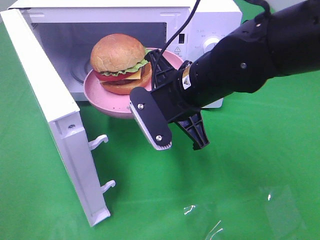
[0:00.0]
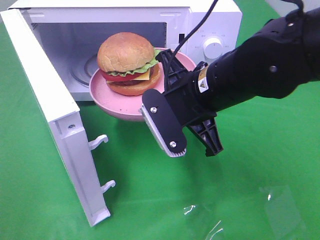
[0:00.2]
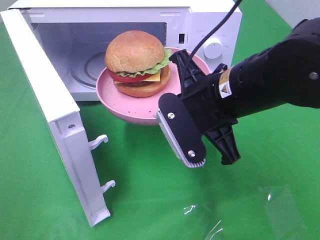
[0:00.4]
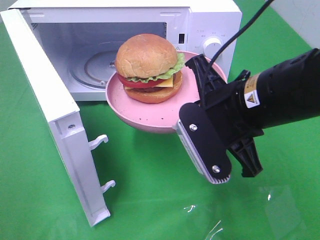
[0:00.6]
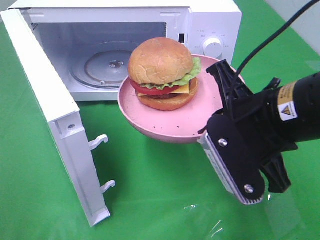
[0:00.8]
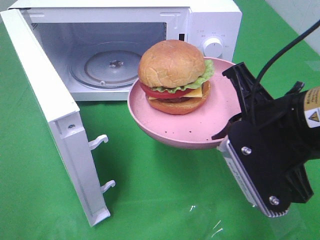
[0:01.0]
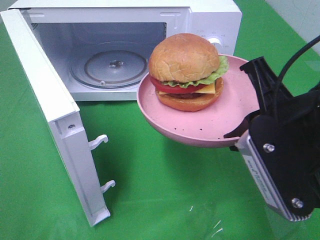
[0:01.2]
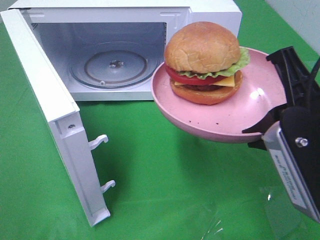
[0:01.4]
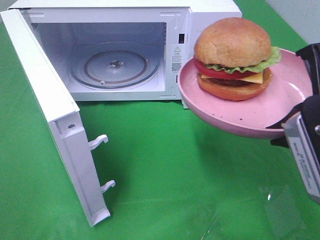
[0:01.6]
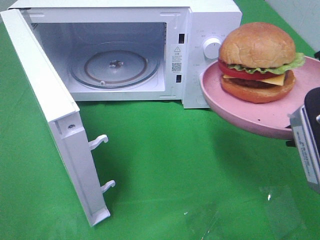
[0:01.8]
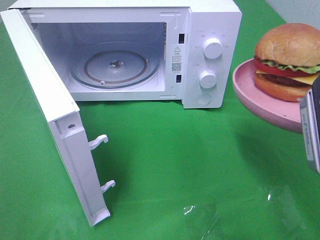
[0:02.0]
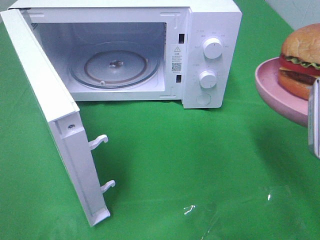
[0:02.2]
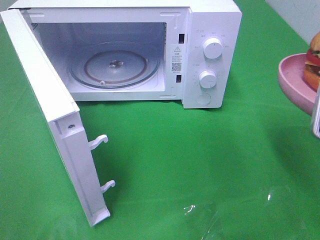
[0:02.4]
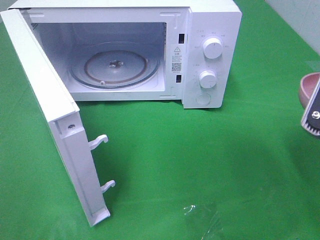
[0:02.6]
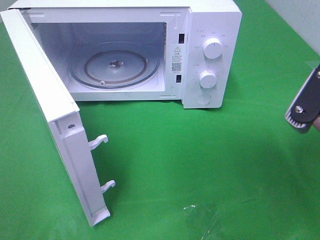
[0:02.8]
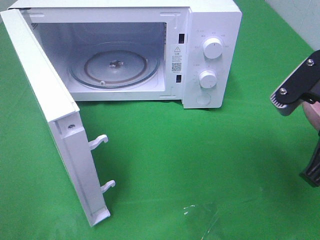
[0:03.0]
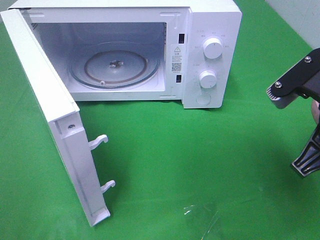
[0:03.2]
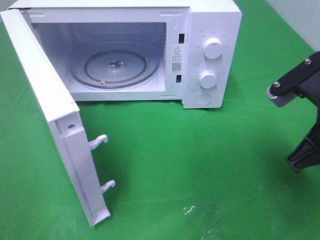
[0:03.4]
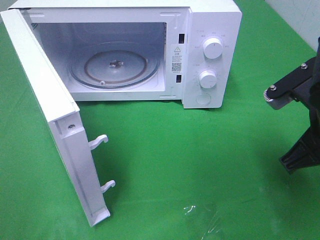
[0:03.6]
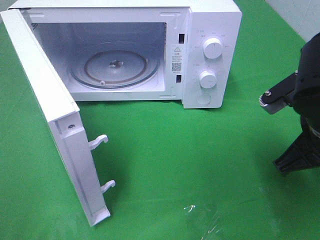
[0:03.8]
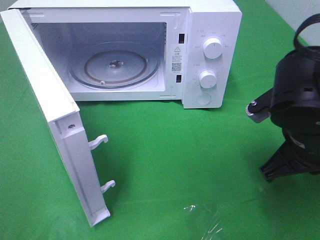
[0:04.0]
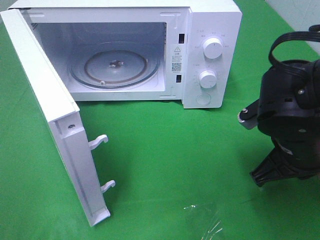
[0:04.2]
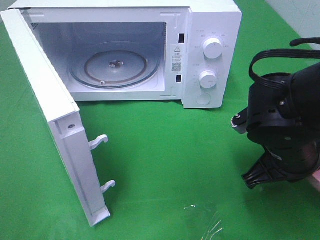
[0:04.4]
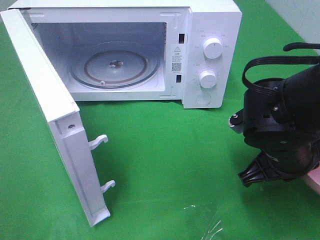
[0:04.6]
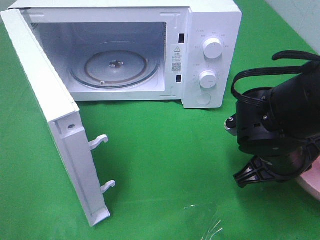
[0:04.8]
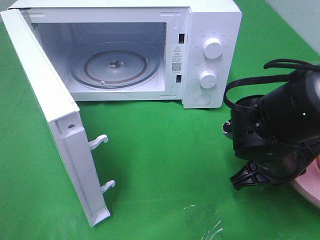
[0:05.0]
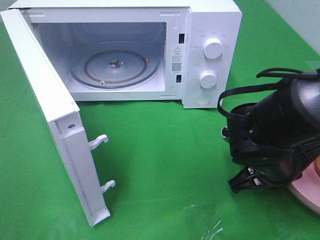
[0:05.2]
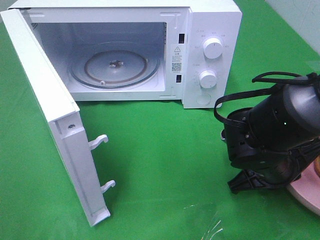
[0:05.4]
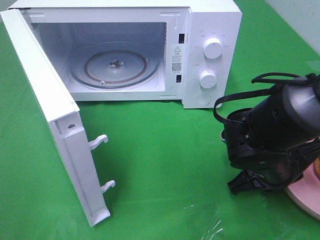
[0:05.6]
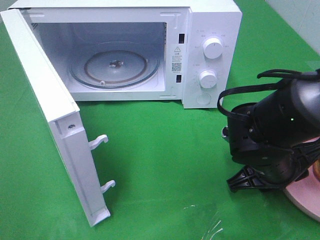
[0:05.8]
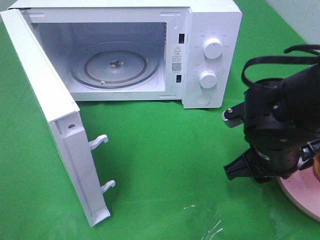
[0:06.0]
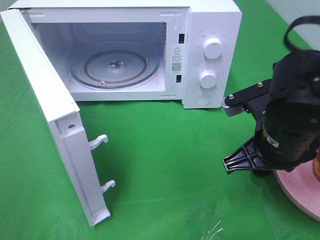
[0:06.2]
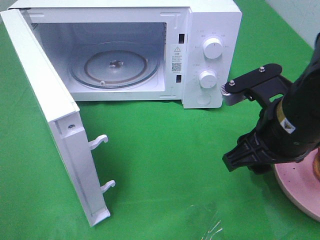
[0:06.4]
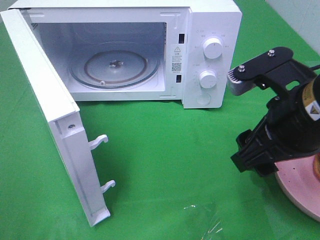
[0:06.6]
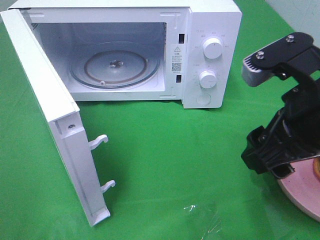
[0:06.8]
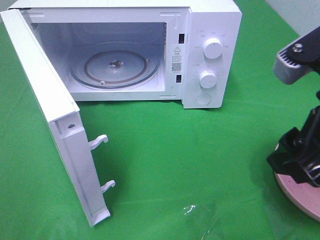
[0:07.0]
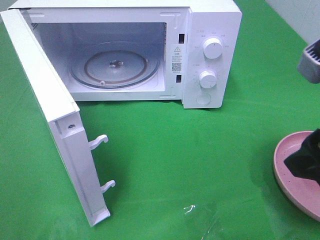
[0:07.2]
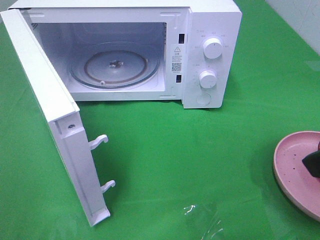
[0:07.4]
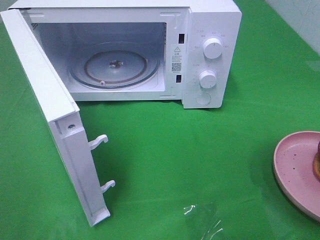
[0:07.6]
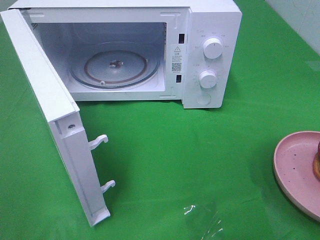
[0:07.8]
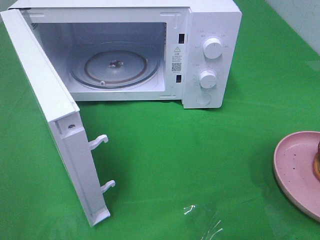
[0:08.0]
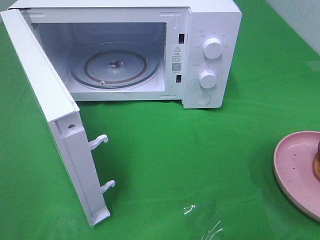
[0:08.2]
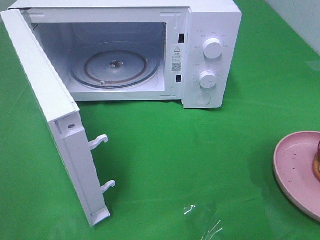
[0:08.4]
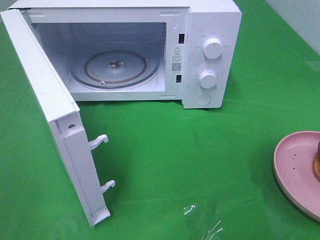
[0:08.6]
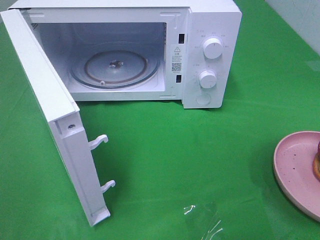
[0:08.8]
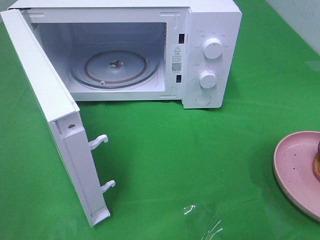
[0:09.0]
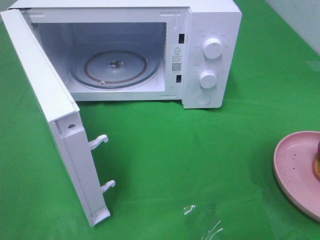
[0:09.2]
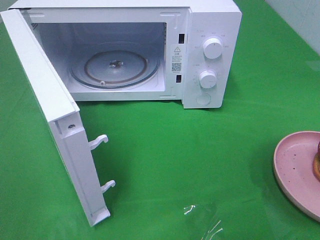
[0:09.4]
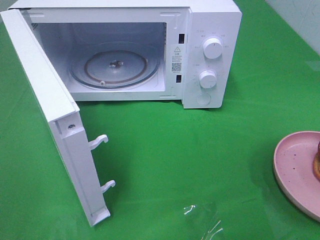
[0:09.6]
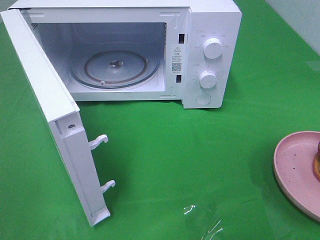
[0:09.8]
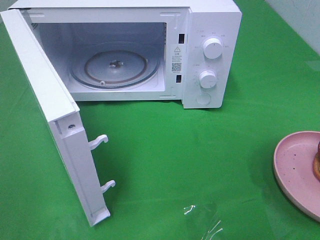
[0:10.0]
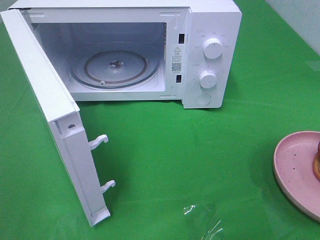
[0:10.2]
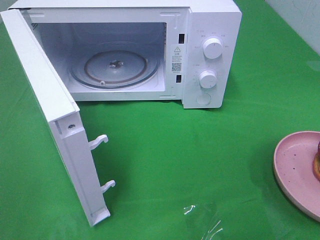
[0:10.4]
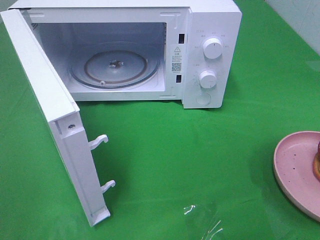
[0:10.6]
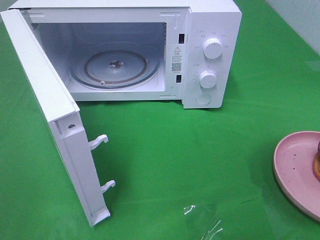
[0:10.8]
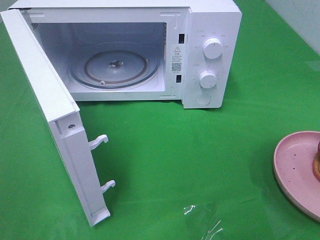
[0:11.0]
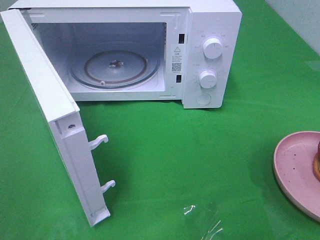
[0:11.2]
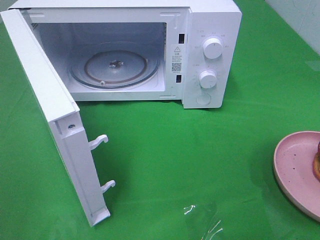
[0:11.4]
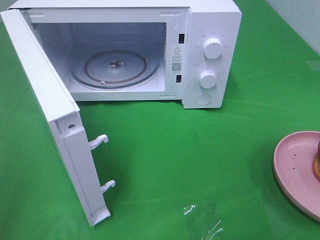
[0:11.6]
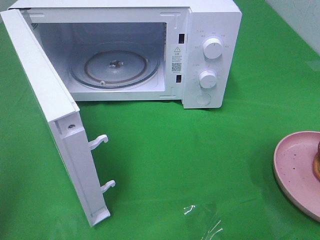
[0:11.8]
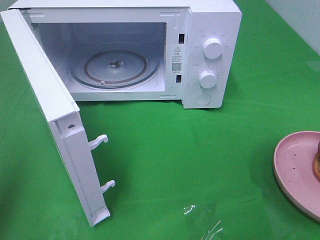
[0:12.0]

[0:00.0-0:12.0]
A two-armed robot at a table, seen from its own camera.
Task of the whole recording: Heat the burger.
Step, 0:00.0 to 0:06.8: Right hand: place the plate on the table.
0:00.0 to 0:01.6: The right gripper shifts approximately 20 cm to the right, backward and upward.
0:03.0 to 0:04.4: The right gripper travels downward by some 10 cm.
0:04.4 to 0:06.0: The right gripper opens.
0:06.0 to 0:07.6: The right gripper moves upward, backward and to the right, some 20 cm, and opens up.
0:09.0 to 0:10.4: Neither gripper changes place.

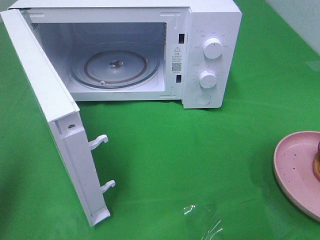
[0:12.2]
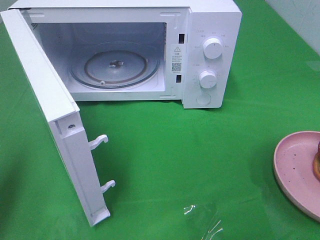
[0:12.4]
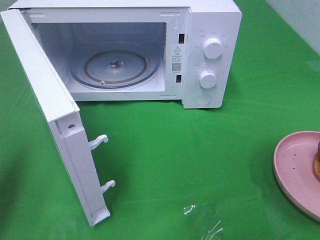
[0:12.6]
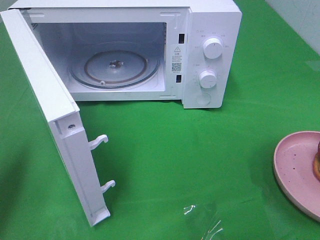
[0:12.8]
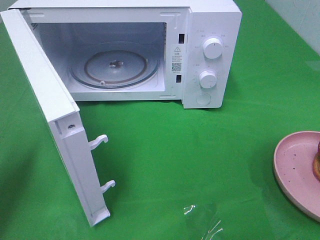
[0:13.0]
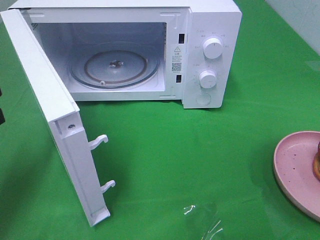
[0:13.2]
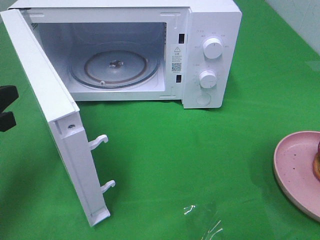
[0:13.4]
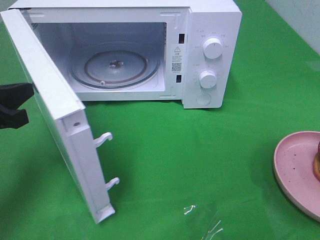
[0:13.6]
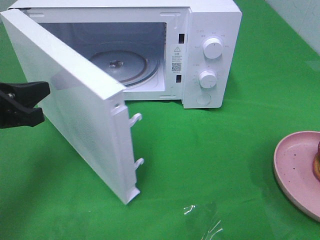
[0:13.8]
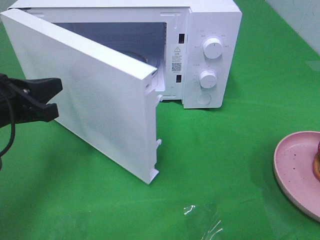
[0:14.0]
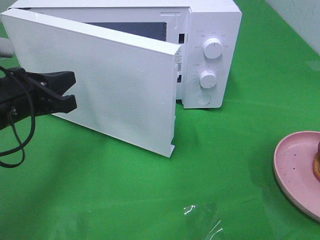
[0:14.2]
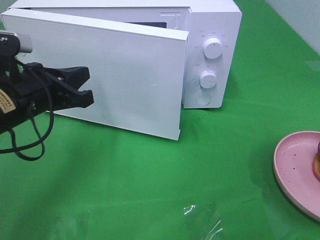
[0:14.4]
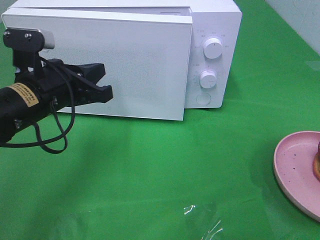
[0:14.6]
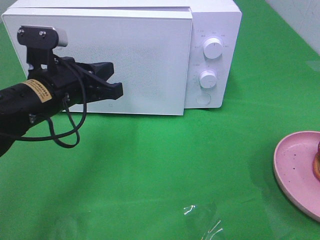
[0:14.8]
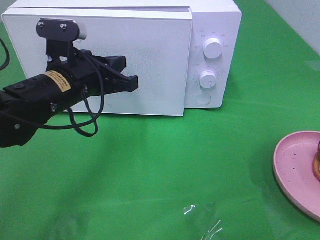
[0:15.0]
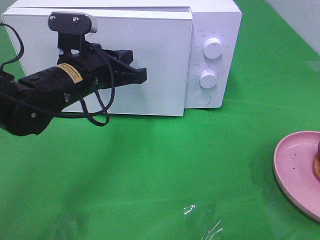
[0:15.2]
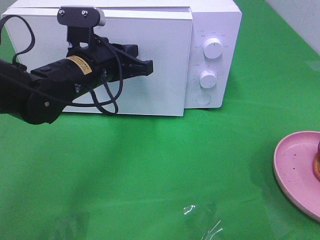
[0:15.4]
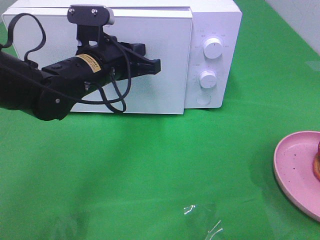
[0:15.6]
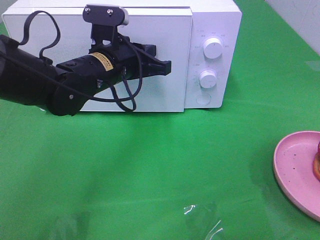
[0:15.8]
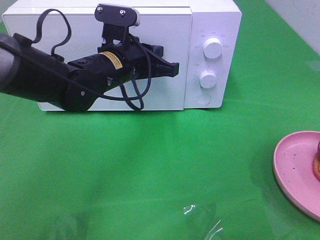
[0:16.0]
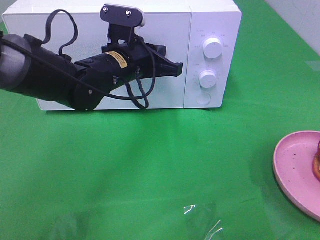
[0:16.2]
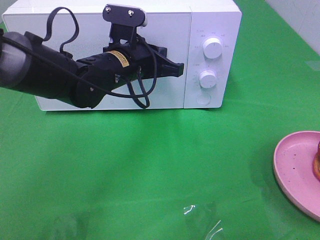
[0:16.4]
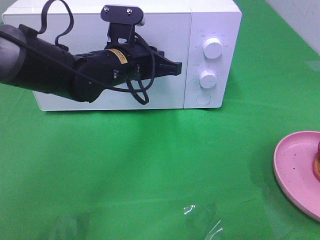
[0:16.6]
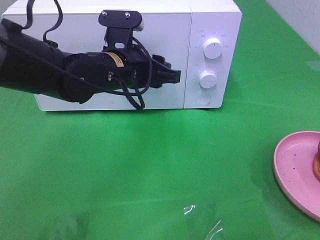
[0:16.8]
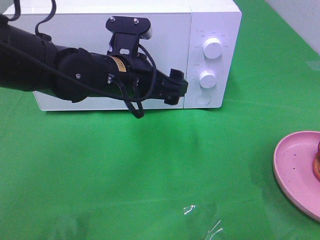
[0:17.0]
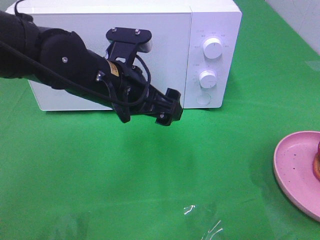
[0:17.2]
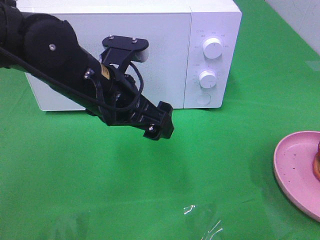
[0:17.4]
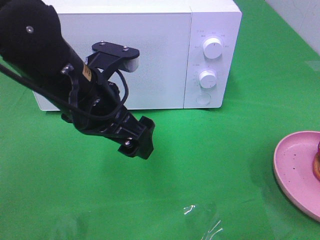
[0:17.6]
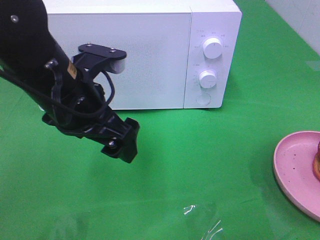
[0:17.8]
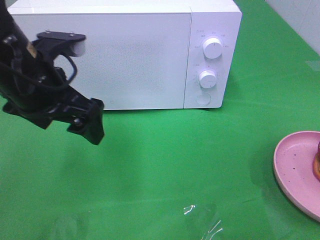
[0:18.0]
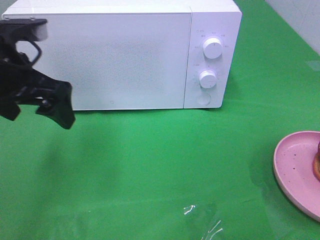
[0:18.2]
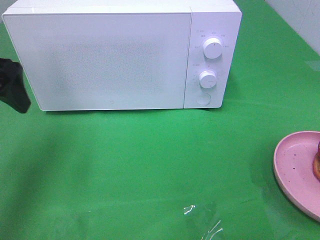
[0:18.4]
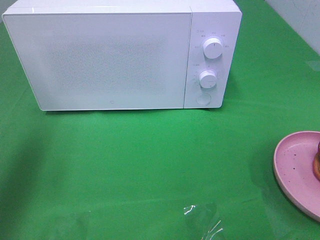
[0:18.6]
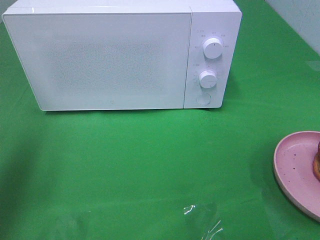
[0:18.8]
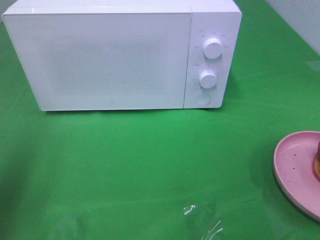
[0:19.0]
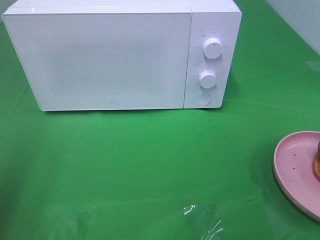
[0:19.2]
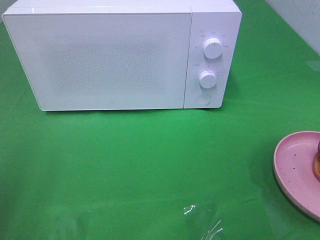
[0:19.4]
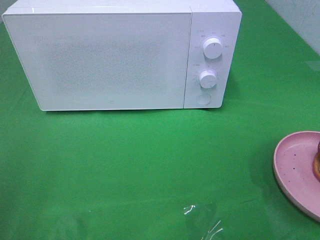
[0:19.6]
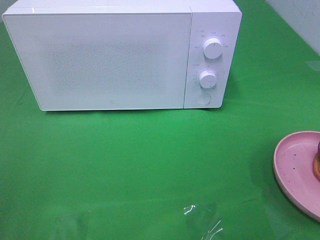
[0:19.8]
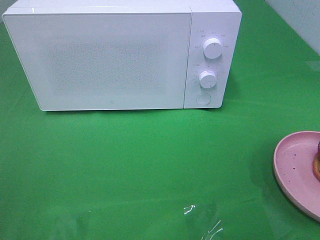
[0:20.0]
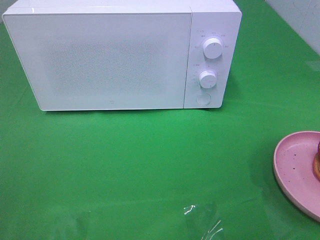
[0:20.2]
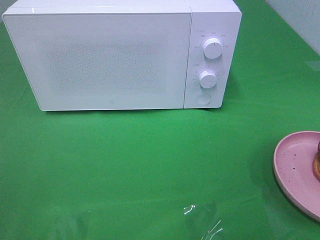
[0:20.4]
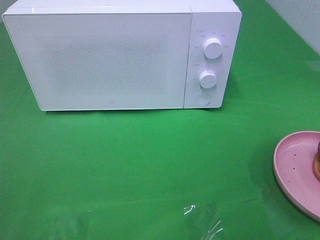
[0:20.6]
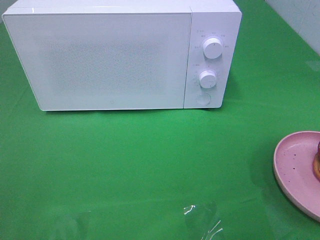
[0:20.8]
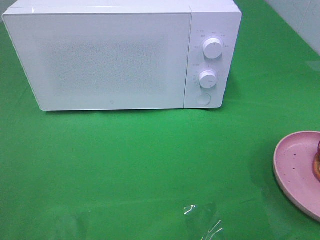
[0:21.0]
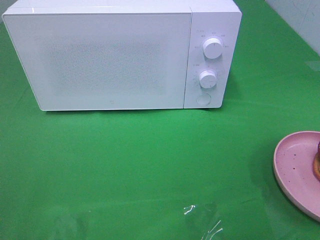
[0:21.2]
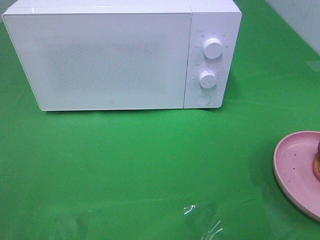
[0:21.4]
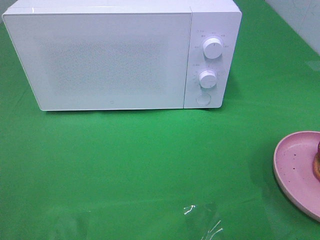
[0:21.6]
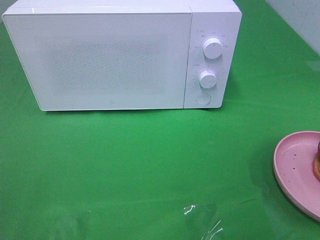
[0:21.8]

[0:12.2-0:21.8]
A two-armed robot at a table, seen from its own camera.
Task of the whole recording: Heat the burger.
Step, 0:12.2 to 0:17.0: Left hand: close the microwave door.
0:12.2 to 0:13.8: The left gripper travels forward, downward and to the right by about 15 cm.
0:13.8 to 0:15.4: The left gripper moves to the right and forward, some 20 cm.
0:15.4 to 0:17.0: The left gripper ends up about 5 cm from where it was, and opens up.
0:17.0 to 0:18.6: The left gripper heads to the left, covering roughly 25 cm.
0:18.6 to 0:20.2: The left gripper shifts about 25 cm backward.

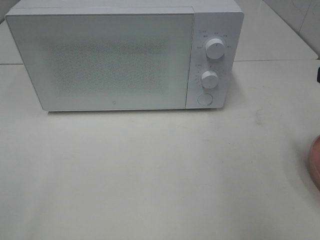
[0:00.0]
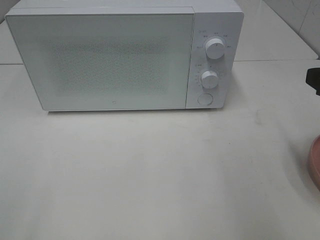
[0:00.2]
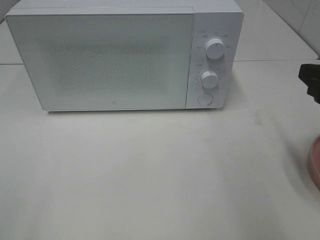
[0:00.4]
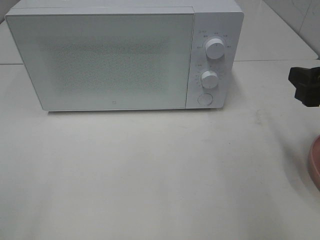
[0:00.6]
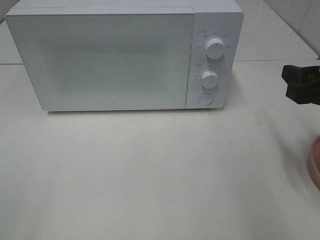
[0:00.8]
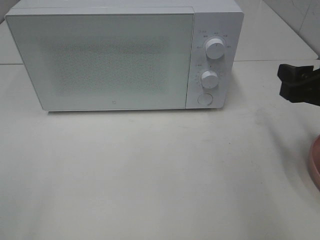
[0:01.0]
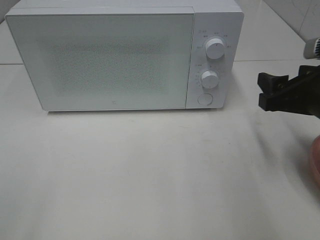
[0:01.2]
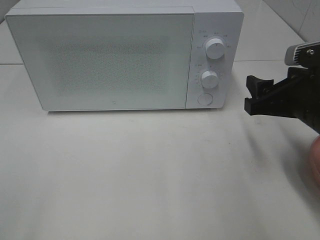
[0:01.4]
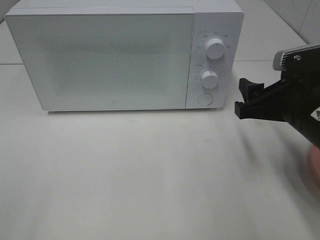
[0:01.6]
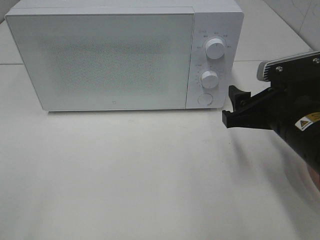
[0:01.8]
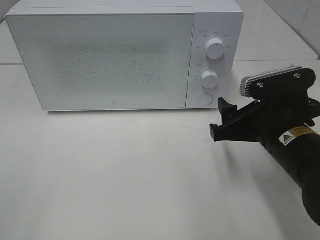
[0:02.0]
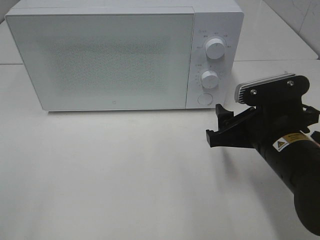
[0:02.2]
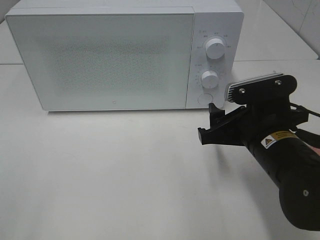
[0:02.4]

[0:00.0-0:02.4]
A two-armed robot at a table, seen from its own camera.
Task of the whole recording: Heat the burger.
0:00.0 to 0:01.2: The right gripper moves downward and forward, roughly 10 cm.
0:01.2 to 0:02.4: The right gripper is displaced to the left and downward by roughly 10 cm.
